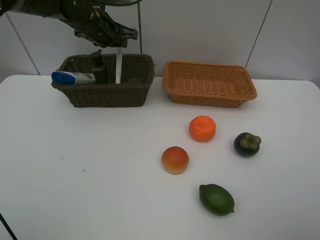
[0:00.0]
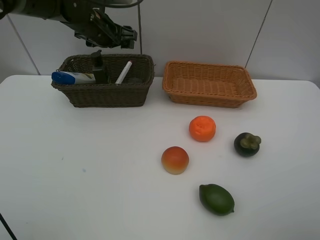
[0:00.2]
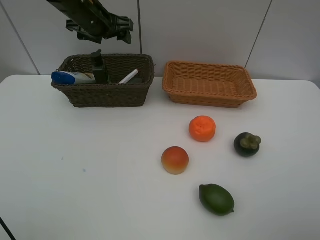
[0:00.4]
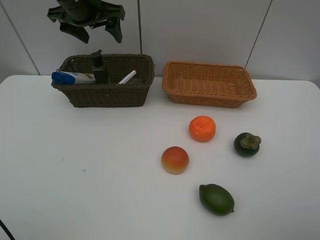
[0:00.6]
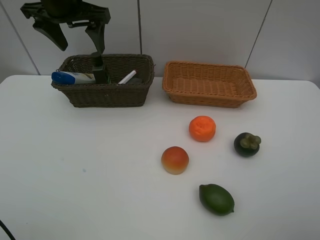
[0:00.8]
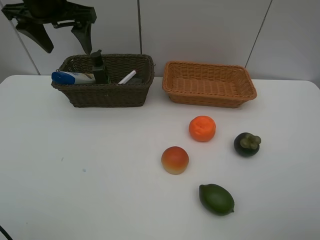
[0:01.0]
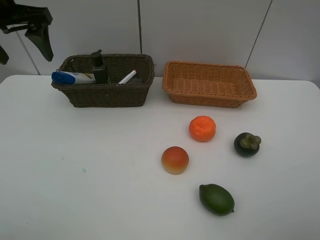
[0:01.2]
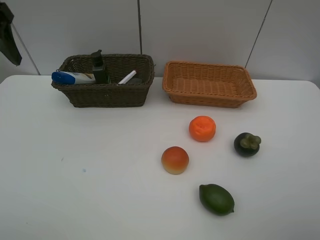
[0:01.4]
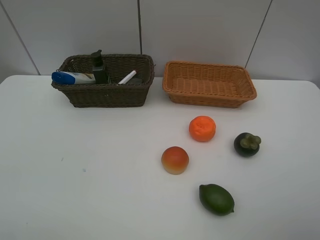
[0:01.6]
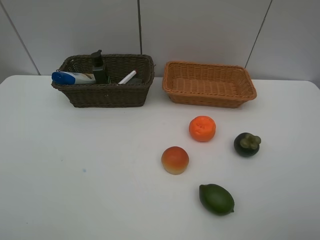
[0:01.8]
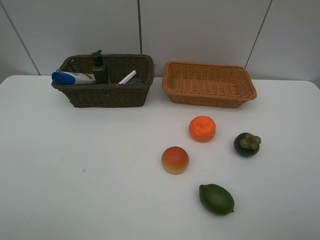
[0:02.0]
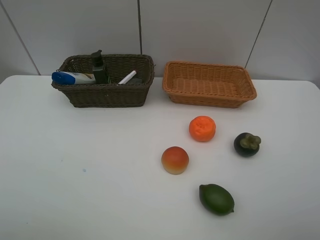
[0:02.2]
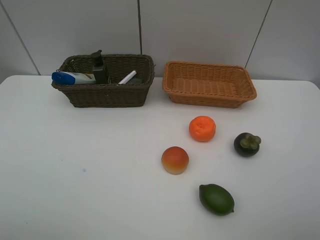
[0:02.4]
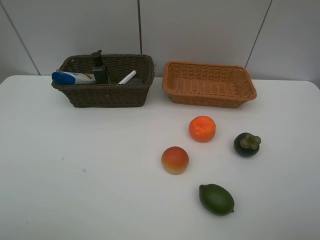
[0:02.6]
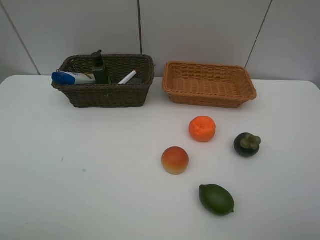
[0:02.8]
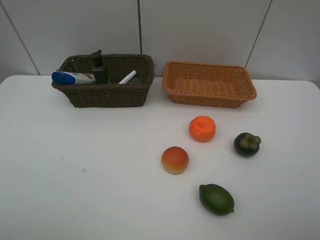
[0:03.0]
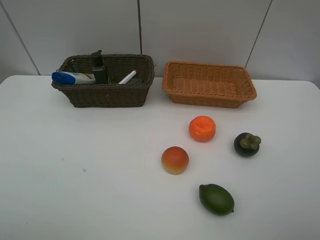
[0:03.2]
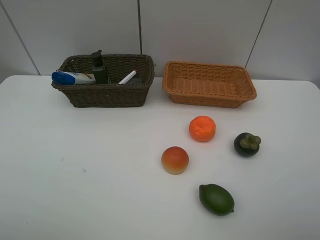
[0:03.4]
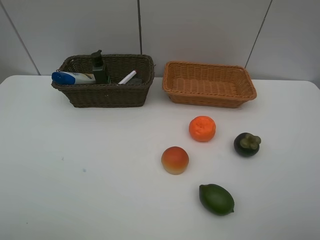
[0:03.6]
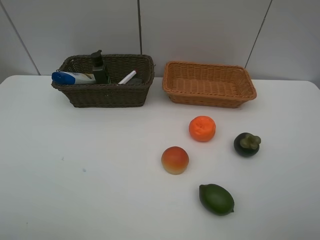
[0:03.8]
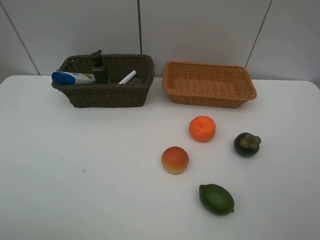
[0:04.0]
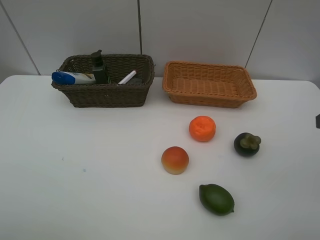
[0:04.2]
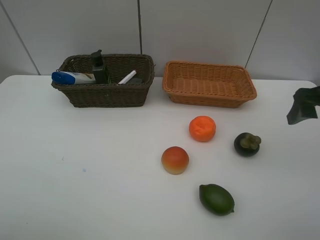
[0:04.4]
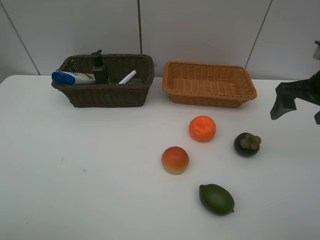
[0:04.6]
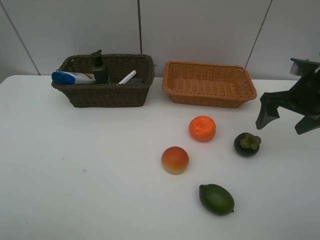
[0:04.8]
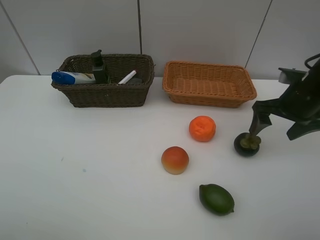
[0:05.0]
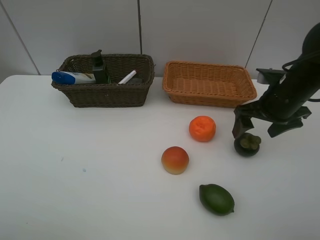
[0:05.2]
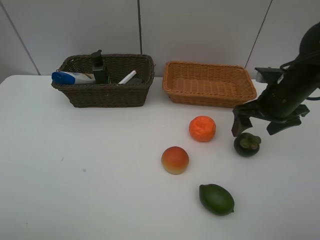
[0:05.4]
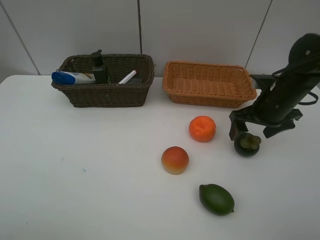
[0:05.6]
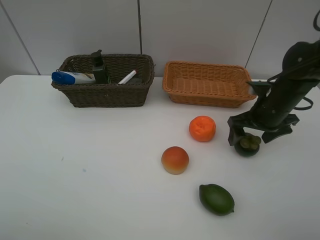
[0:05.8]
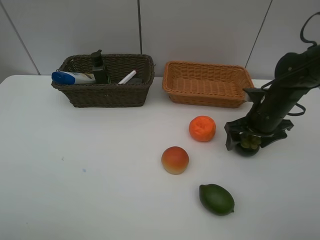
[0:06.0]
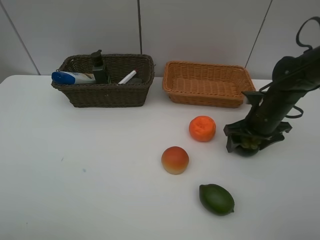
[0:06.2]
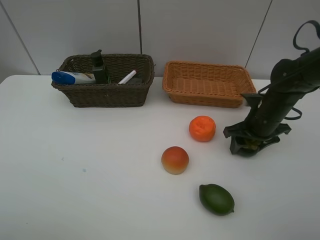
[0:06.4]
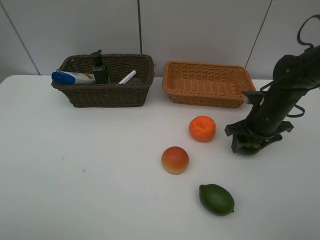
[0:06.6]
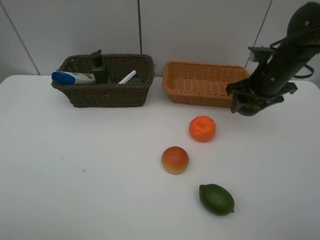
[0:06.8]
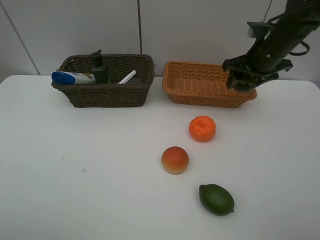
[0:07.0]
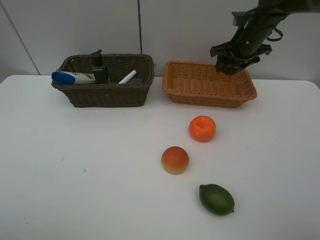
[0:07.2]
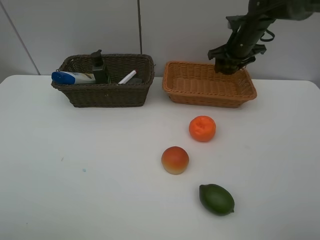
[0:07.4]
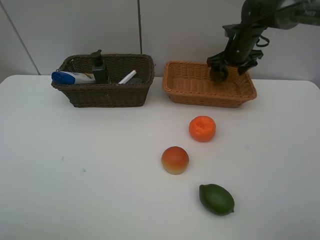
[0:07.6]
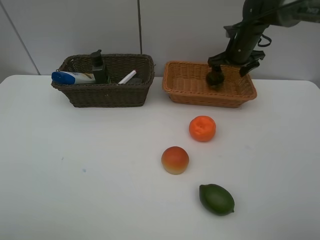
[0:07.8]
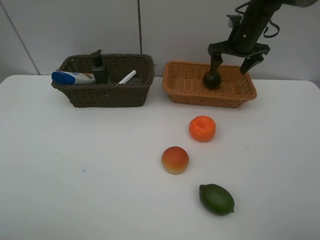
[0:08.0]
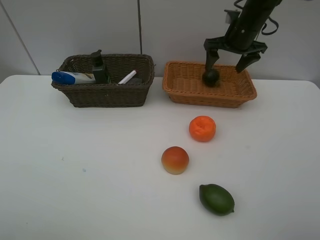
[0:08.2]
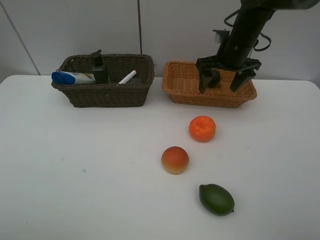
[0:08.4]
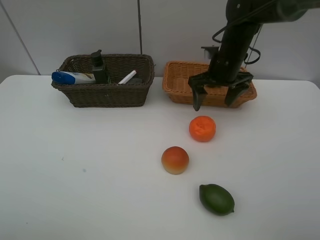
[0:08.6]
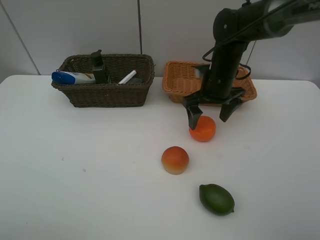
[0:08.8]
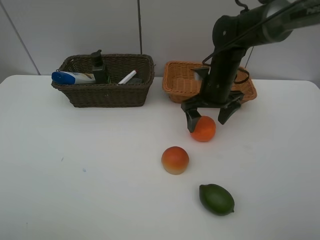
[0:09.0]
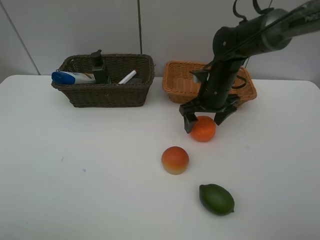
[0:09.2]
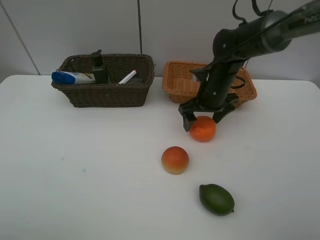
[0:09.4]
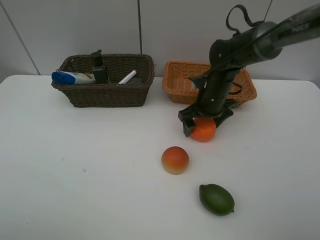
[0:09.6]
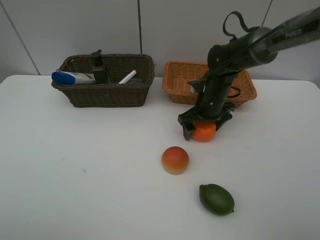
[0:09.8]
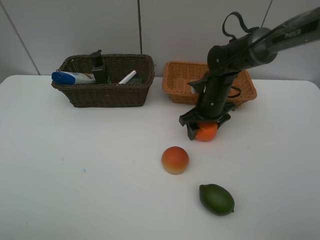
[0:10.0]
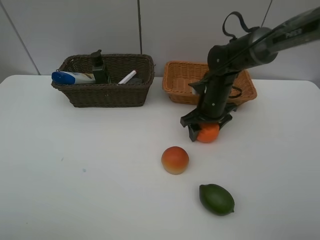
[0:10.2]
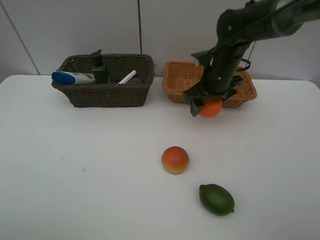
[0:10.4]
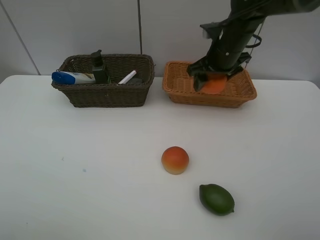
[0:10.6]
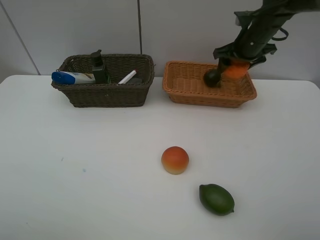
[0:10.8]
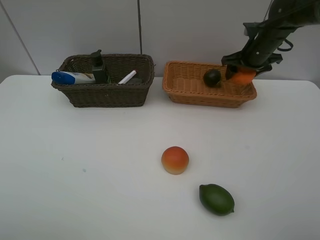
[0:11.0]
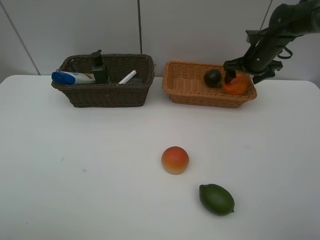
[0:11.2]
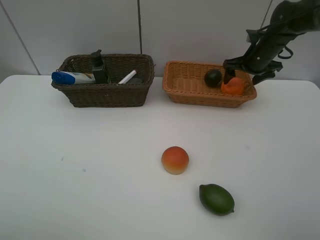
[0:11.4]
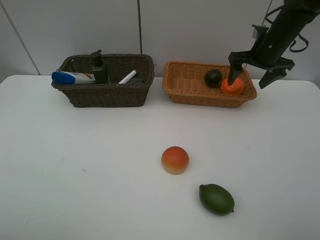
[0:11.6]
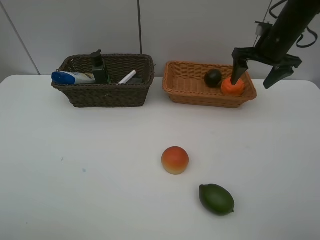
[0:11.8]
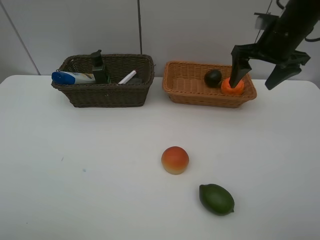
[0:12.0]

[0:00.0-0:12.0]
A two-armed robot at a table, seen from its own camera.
Task of the whole recording: Place multiple objects separately in different baskets.
Step, 0:00.4 to 0:06.6: Pick up the mangosteen with right gripper.
Step, 0:06.8 to 0:07.8: Place the mangosteen in the light basket with right gripper.
Step, 0:08.0 to 0:10.2: Pick up the orange with right gripper.
Step, 0:10.4 to 0:11.4: Place the orange in the light basket with right gripper.
0:00.0 to 0:01.6: The left gripper heads backward, to the left and upward, covering some 35 cm, and opens its fingers.
0:03.0 to 0:04.4: The right gripper shifts some 25 cm forward.
0:04.4 to 0:06.0: The right gripper travels downward, forward and to the left by approximately 15 cm.
0:06.0 to 0:07.6: The right gripper moves forward, approximately 20 cm, and closes and opens again.
0:07.6 to 0:09.0: The right gripper heads backward and to the left, covering about 15 cm.
0:09.0 to 0:10.4: The right gripper closes its fingers.
0:10.4 to 0:12.0: The right gripper goes approximately 15 cm upward and to the right, and opens up.

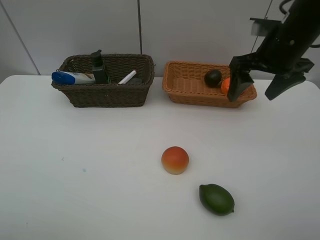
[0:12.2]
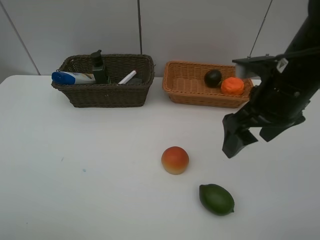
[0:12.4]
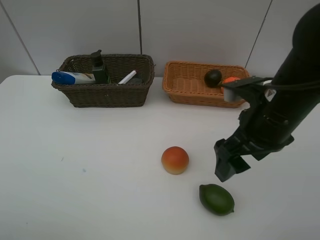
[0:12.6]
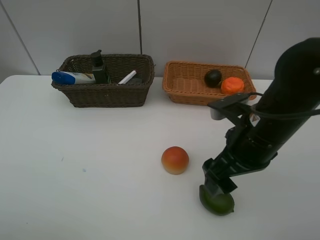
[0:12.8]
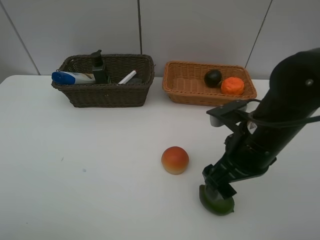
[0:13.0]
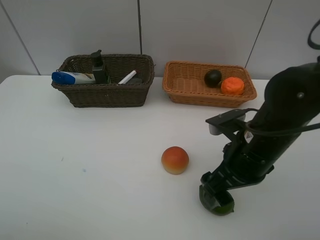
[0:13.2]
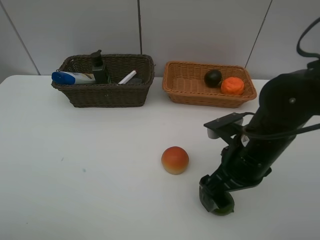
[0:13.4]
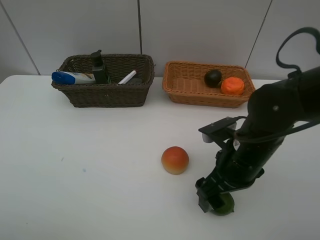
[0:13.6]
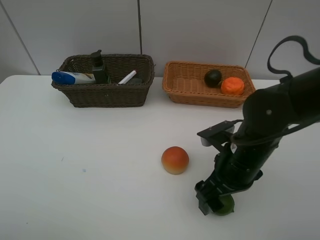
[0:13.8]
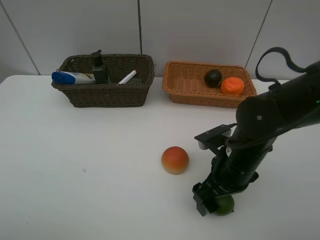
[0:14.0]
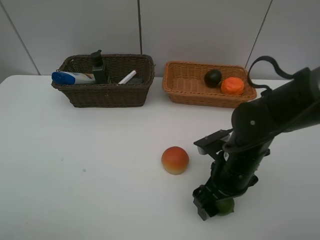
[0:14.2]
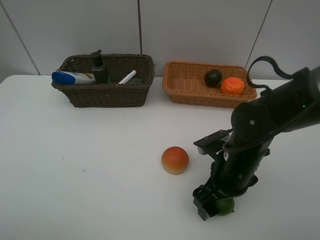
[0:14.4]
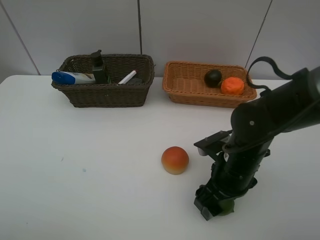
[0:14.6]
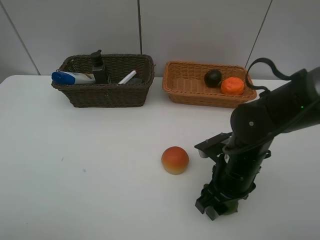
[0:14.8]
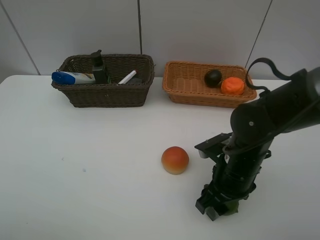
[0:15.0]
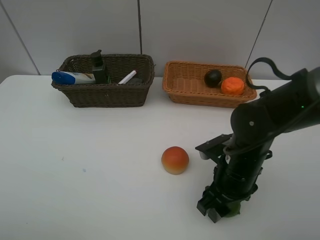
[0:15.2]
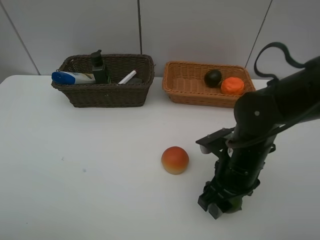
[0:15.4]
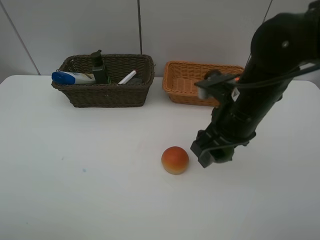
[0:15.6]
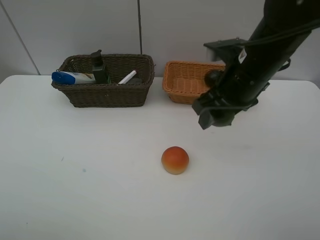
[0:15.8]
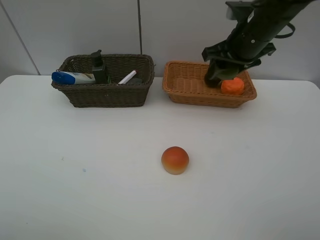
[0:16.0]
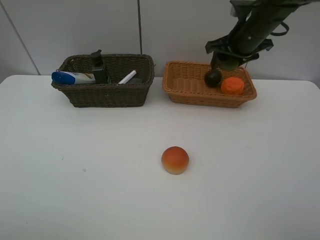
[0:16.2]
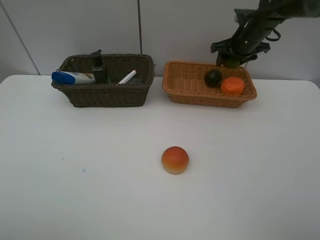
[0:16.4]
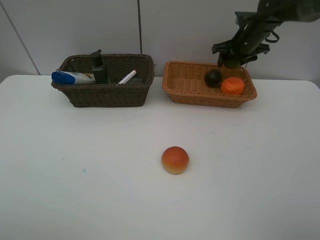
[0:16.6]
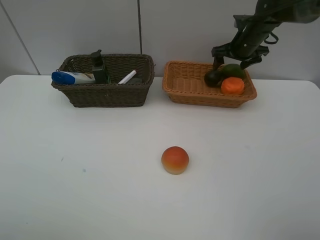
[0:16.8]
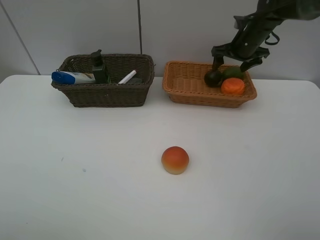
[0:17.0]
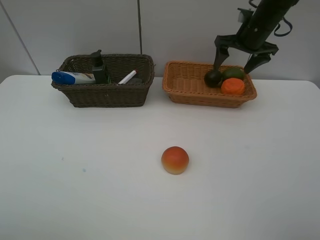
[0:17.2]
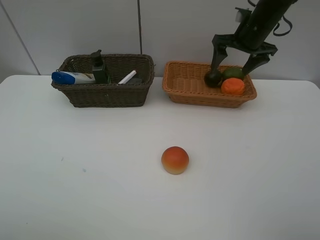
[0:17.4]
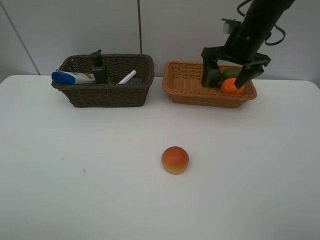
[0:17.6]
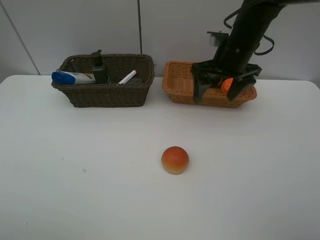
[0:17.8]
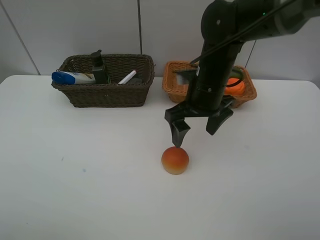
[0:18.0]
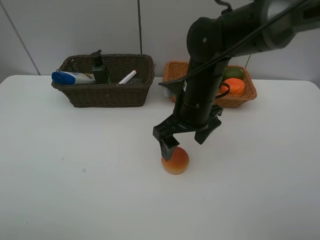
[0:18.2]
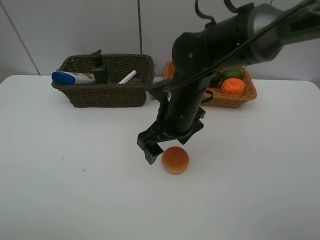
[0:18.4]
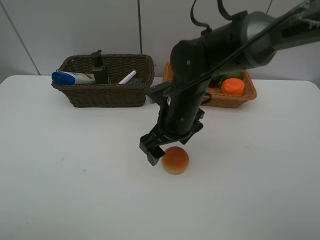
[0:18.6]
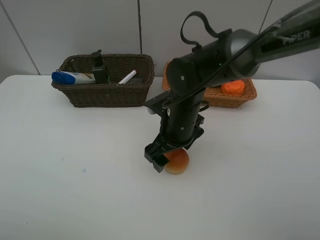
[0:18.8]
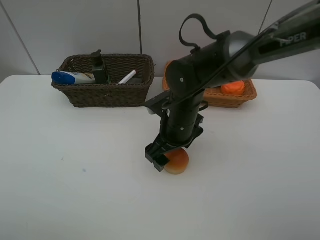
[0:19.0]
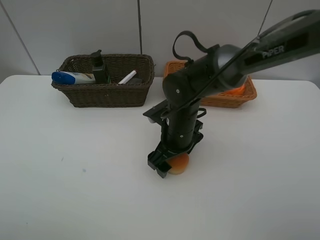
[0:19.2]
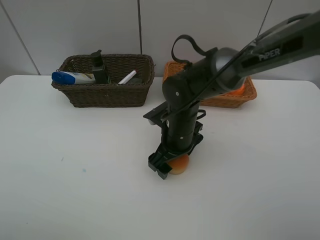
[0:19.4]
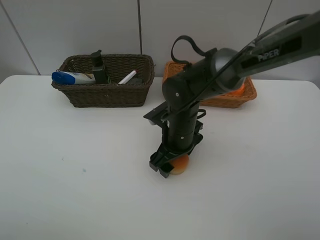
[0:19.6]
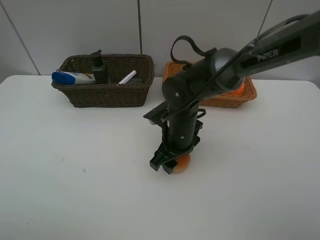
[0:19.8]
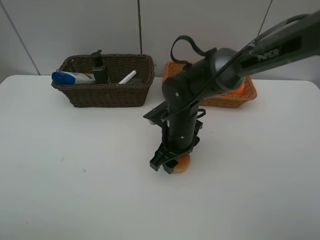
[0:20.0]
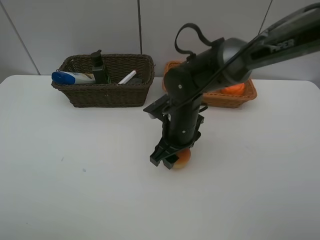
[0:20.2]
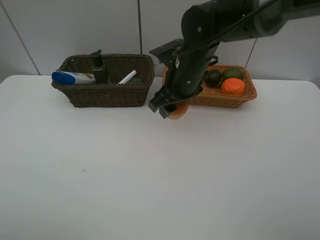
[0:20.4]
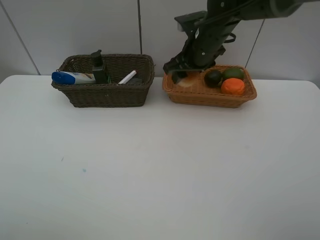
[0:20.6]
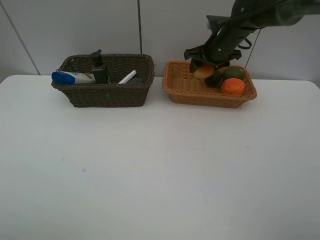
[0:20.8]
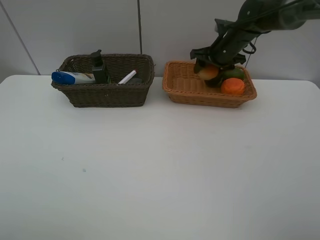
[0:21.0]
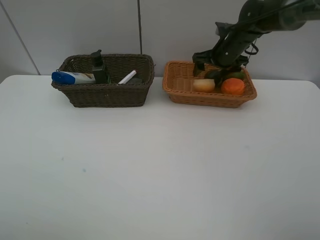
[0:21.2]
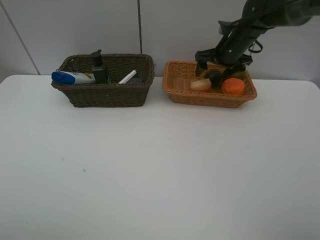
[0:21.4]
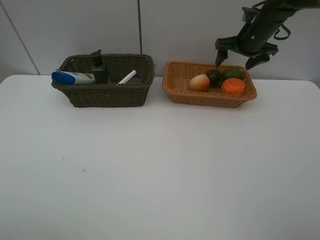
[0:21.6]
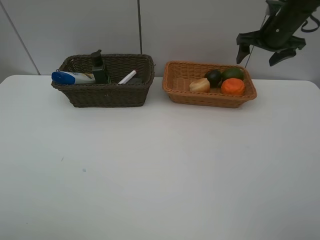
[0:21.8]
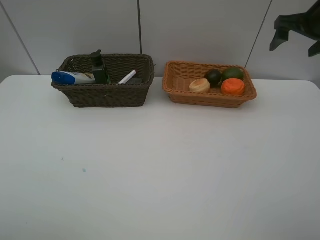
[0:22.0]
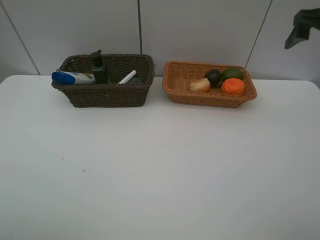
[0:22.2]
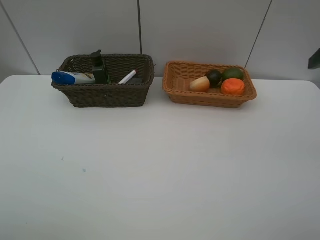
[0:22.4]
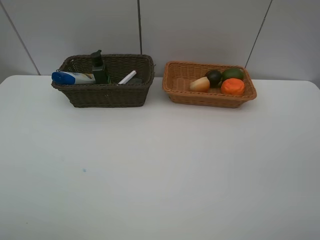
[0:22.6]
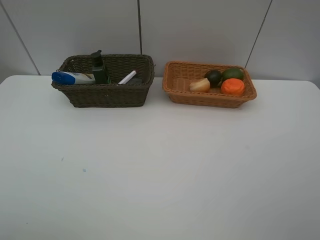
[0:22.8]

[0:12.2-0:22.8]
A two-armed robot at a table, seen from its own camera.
Task of the whole recording: Place multiple objects separately in different baskets.
Step, 0:12.2 to 0:15.4: Pick up the lime with right gripper.
Step, 0:15.6 to 0:16.8: Place the lime in the light basket with right gripper.
Step, 0:17.0 to 0:20.2: Pick up egg yolk pastry with right gripper.
Step, 0:20.4 to 0:21.4: Place the egg yolk pastry in the light basket with right gripper.
0:12.2 to 0:13.8: The right gripper shifts roughly 20 cm downward, backward and to the left.
0:13.8 to 0:15.2: The right gripper closes.
0:15.2 to 0:16.8: The right gripper goes about 30 cm forward, and opens.
0:16.8 to 0:18.2: The right gripper moves backward and to the left, some 30 cm.
0:18.2 to 0:19.8: The right gripper travels downward by some 10 cm, and closes.
0:19.8 to 0:21.2: The right gripper moves forward, to the right and upward, roughly 25 cm, and opens its fingers.
0:21.2 to 0:22.8: The right gripper goes roughly 40 cm backward.
